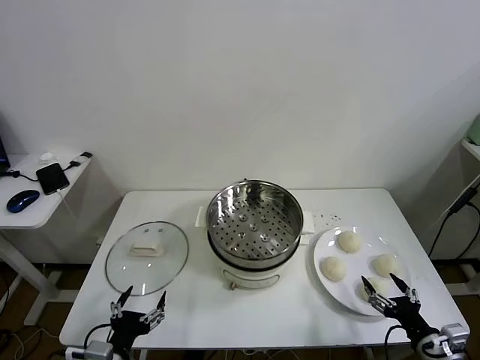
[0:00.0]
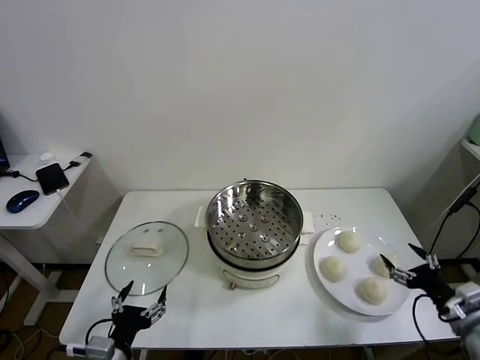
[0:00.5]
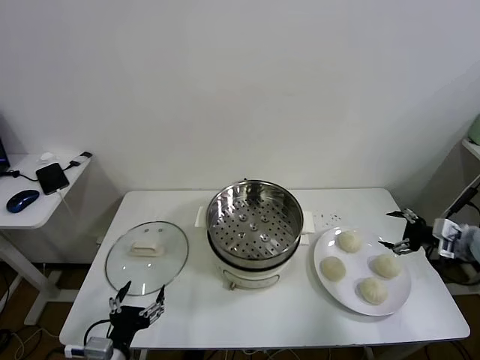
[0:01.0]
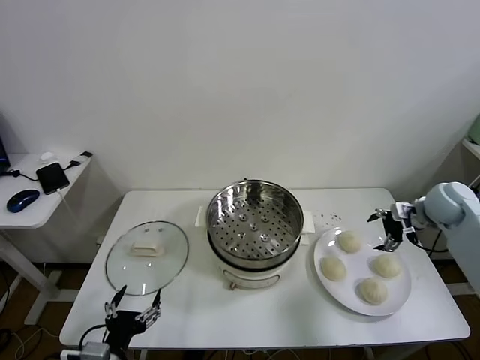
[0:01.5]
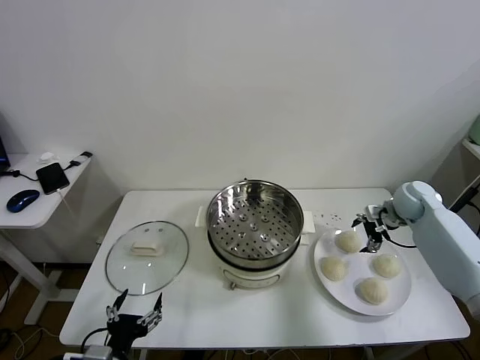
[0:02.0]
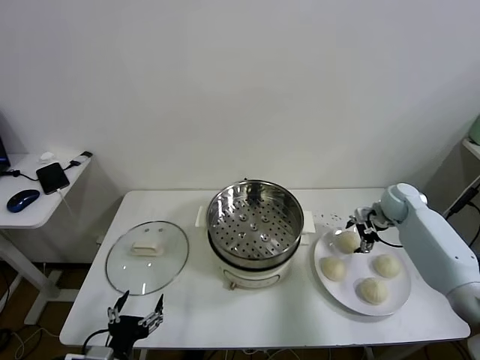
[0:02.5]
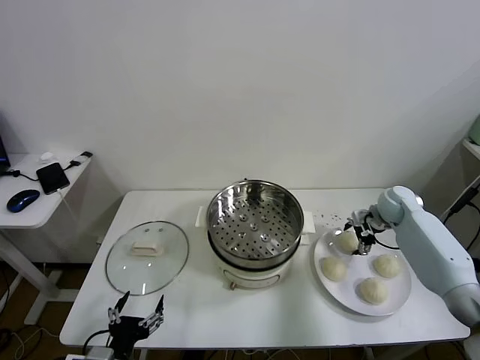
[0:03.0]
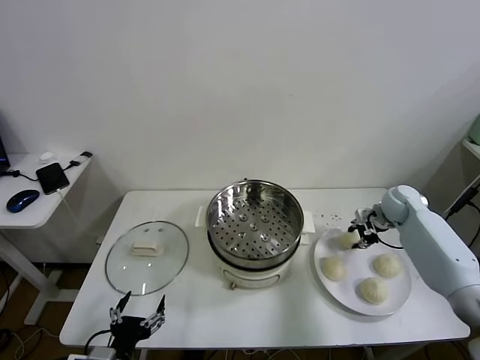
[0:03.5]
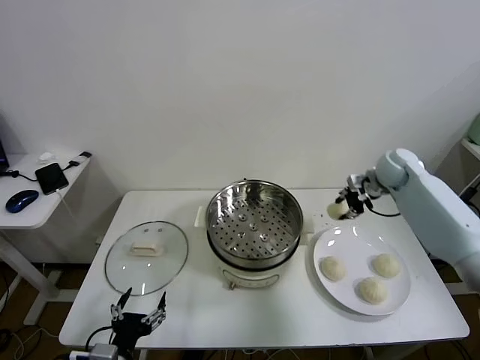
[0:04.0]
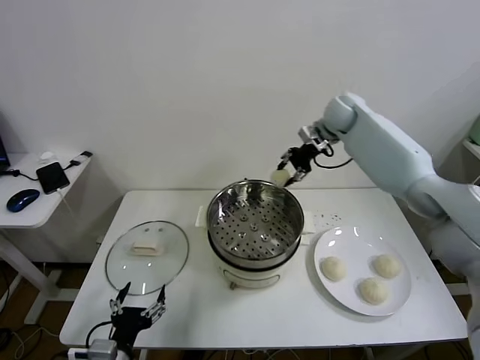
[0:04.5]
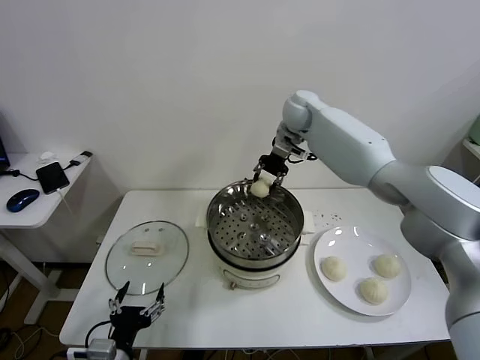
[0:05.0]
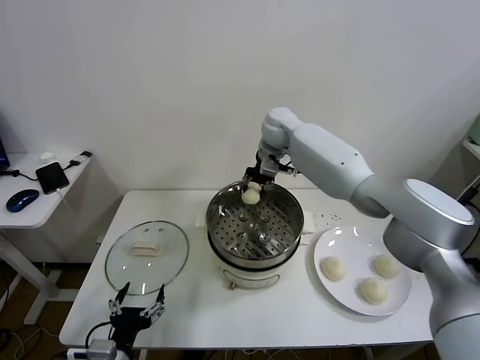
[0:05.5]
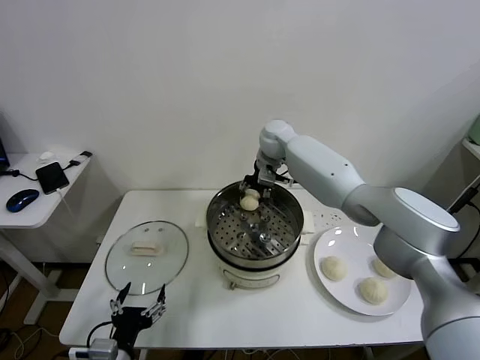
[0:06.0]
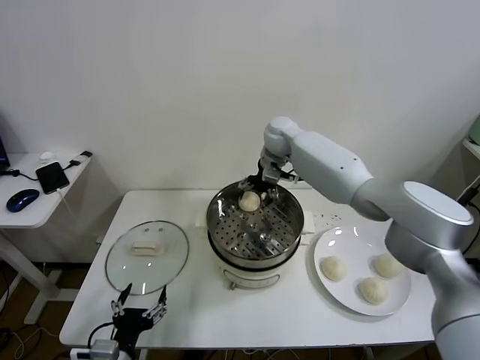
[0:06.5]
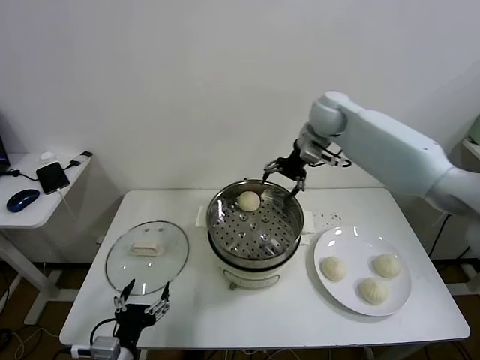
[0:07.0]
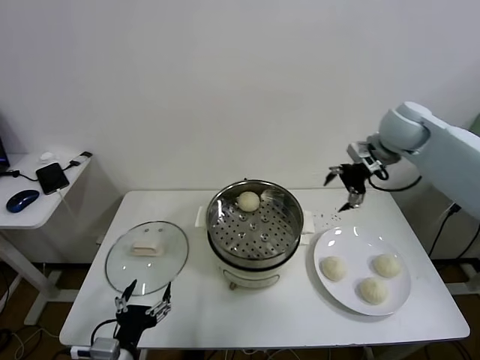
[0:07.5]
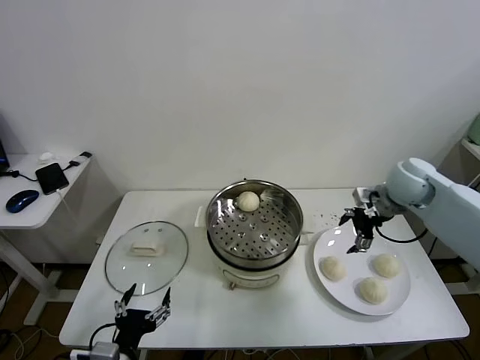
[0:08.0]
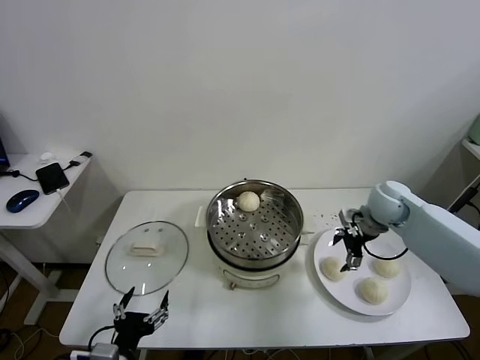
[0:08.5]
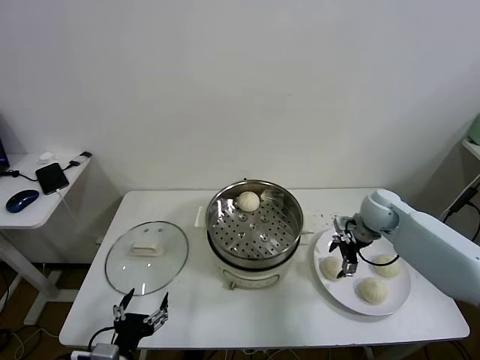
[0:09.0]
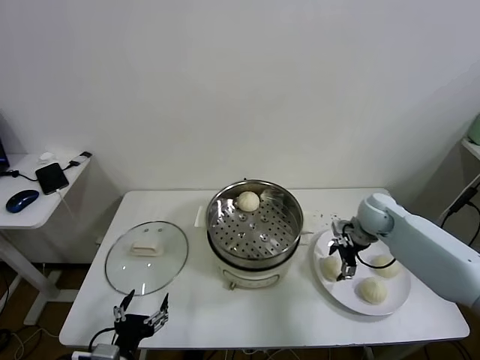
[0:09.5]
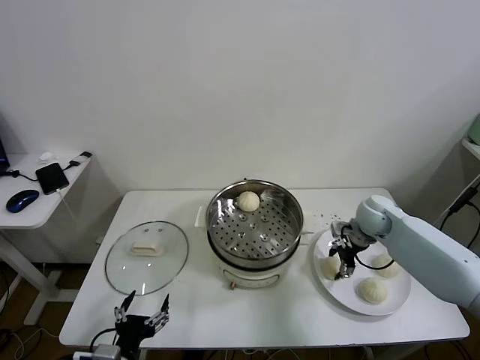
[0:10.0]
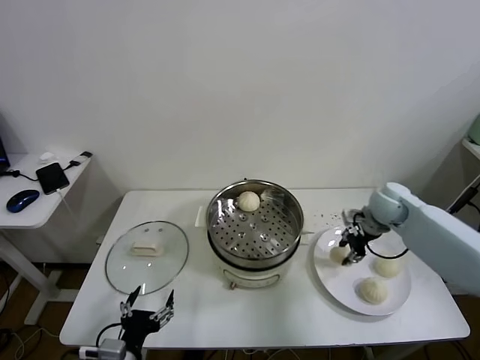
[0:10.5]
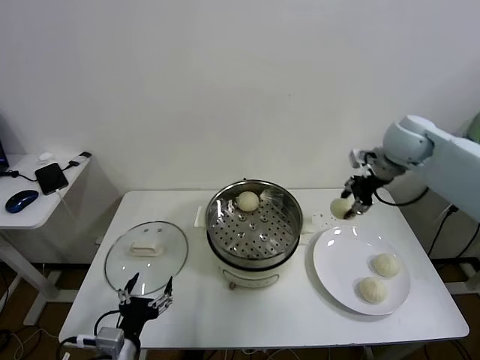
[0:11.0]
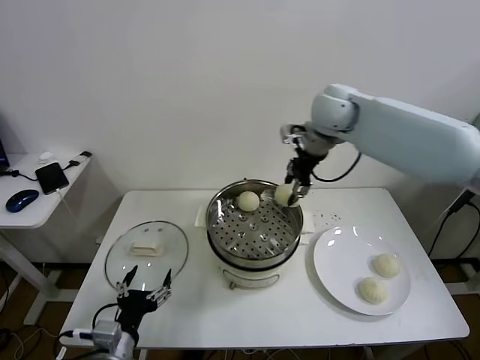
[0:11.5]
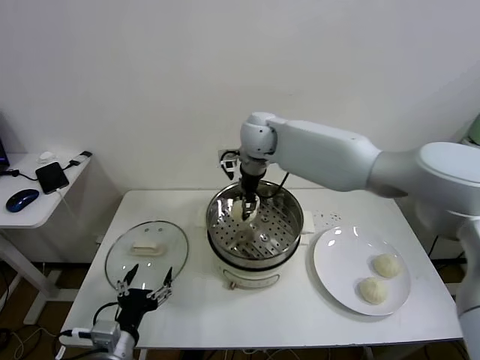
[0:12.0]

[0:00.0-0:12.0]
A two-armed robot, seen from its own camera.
Task of the whole recording: take steamed baozi put them in steamer.
Step, 0.0 to 3.0 s: Grasp the baozi in the plate with right gripper.
Step, 3.5 to 6.0 s: Place the baozi on the steamer with right gripper.
Step, 6.5 to 10.0 s: Grasp the baozi in the plate with right gripper.
2.0 to 4.0 s: The right gripper moves upward, to the left and forward, about 15 cm, and closes up.
4.0 to 6.0 s: The right gripper shifts approximately 25 cm to the left, and opens.
6.0 to 8.0 s: The right gripper goes roughly 30 cm to the right and backward, and opens up.
8.0 to 10.0 s: The right gripper goes approximately 10 cm downward, and closes.
10.0 to 12.0 s: The right gripper moves to the left and upward, some 35 cm.

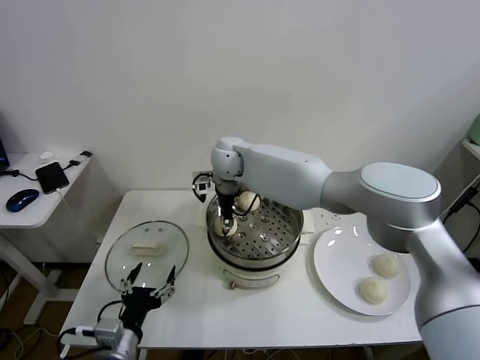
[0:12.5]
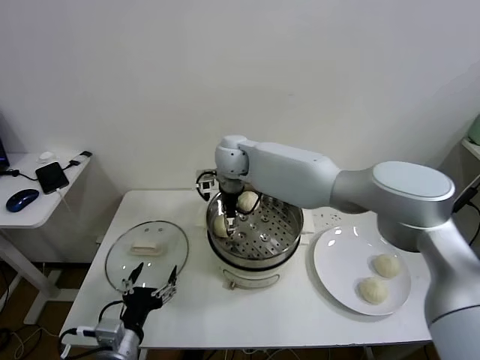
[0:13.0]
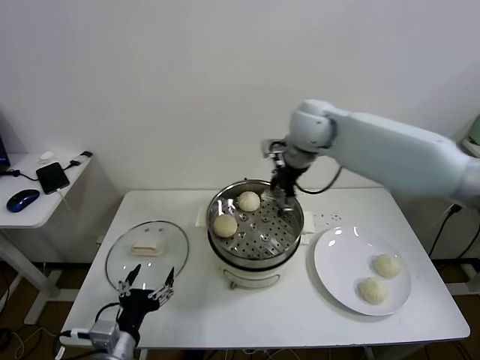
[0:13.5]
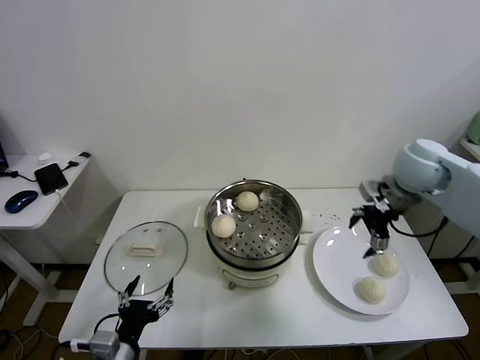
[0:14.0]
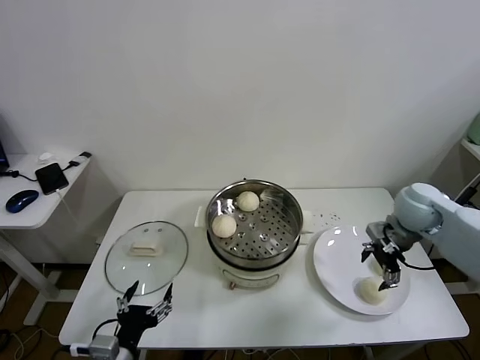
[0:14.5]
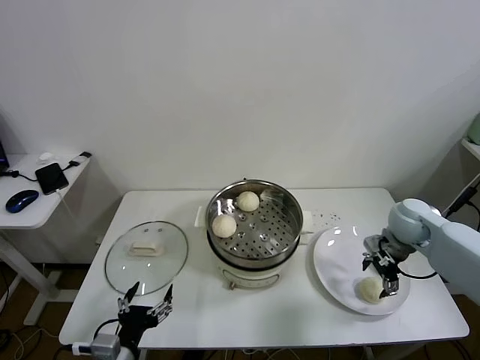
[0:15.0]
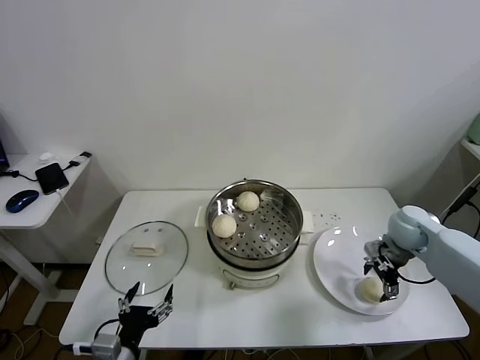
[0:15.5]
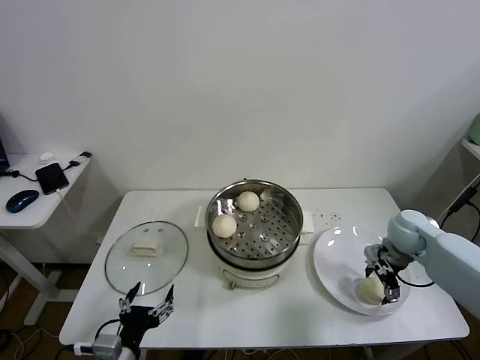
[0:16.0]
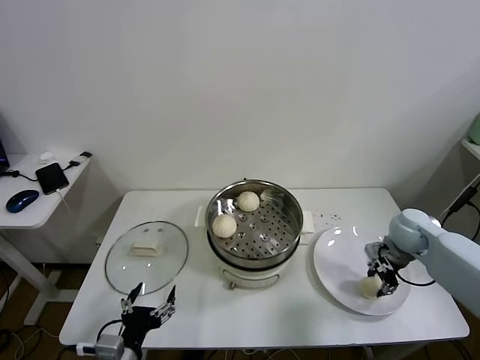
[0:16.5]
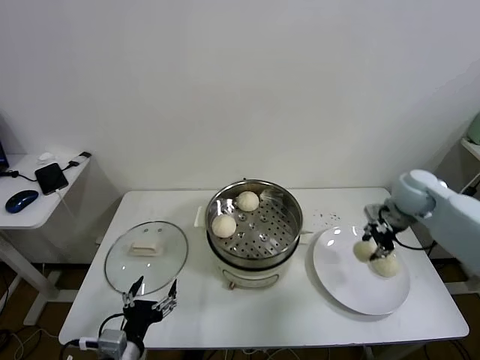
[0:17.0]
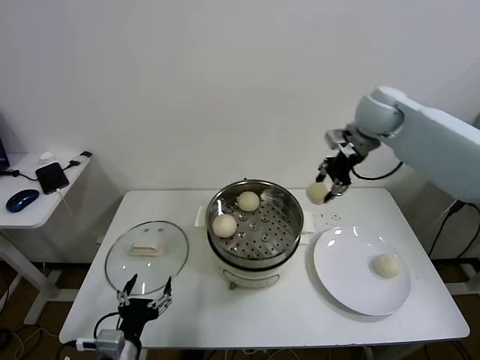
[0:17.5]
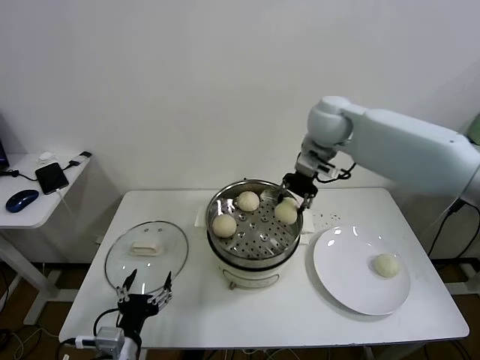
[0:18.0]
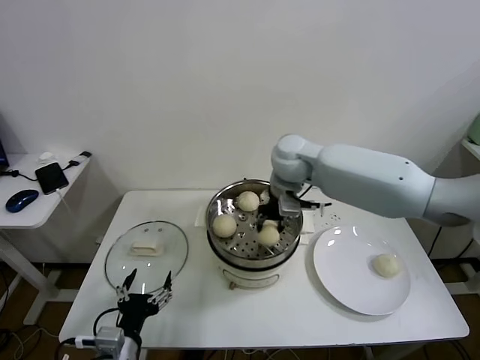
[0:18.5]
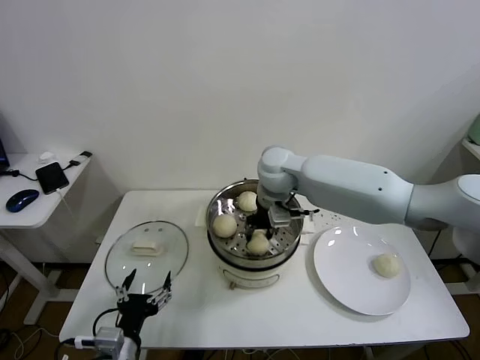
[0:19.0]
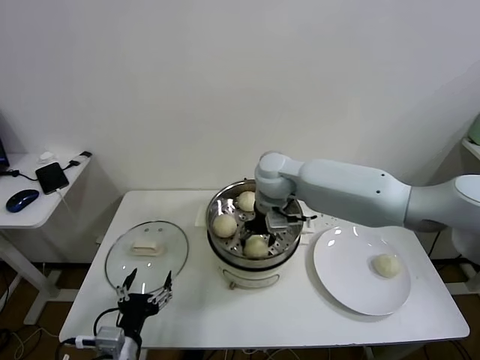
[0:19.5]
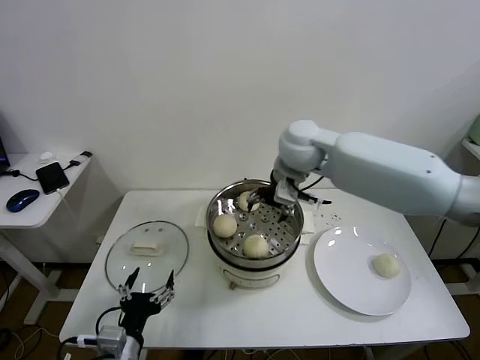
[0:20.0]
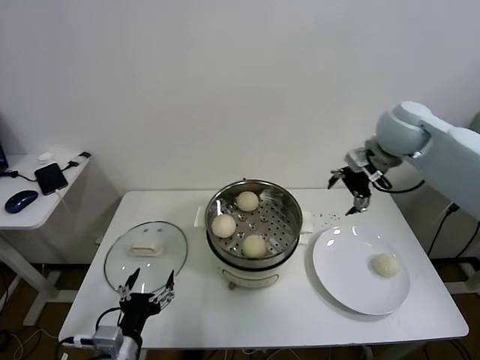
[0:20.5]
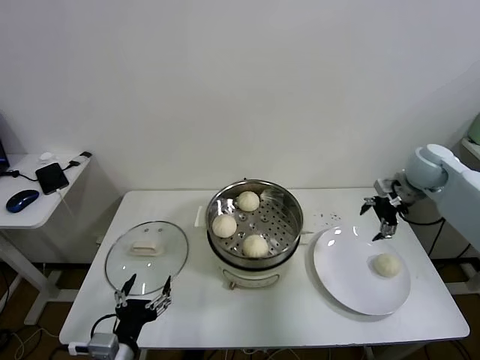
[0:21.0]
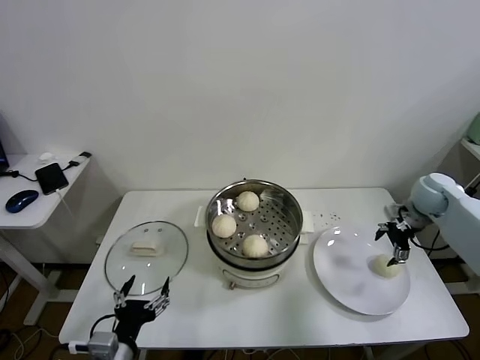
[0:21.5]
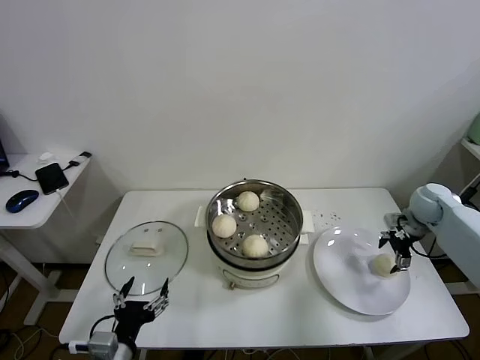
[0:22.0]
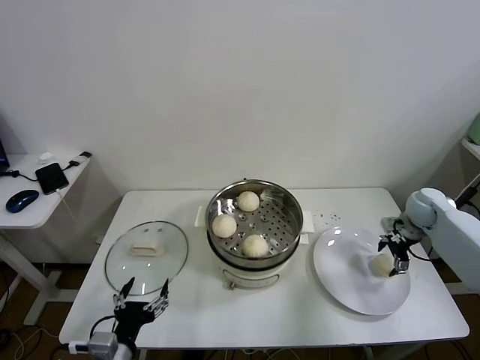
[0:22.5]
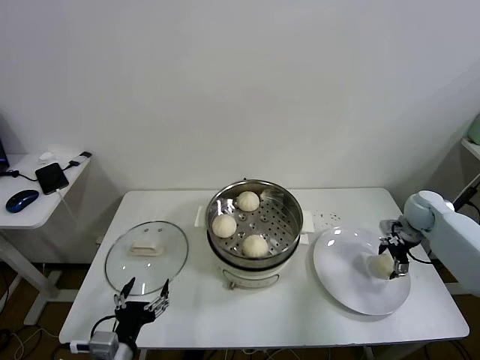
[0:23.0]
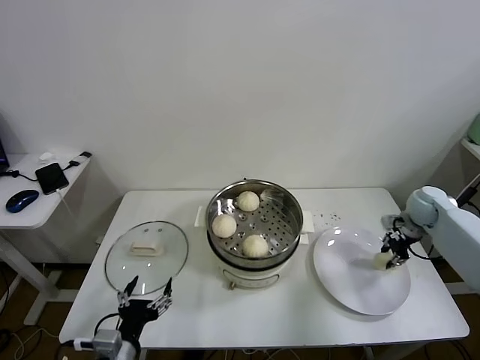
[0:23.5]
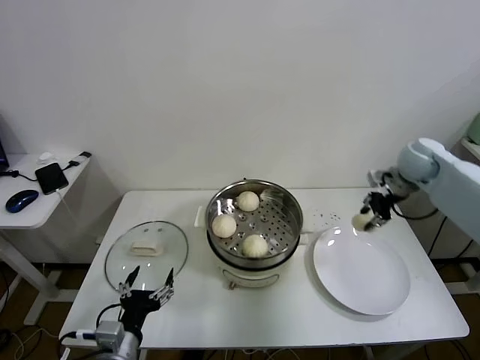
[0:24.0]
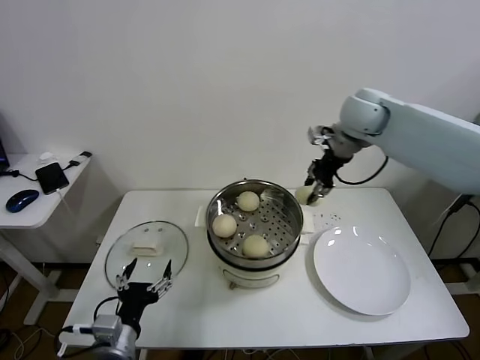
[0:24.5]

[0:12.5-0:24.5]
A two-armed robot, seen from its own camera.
Task of the whole recording: take steamed baozi put them in steamer.
Step, 13.5 to 16.0 s: Grasp the baozi in the plate with right gripper.
Step, 16.5 to 19.5 s: Place the baozi on the steamer with right gripper.
Step, 20.0 to 23.0 s: Grasp the baozi in the plate with right gripper.
12.5 to 14.5 s: The right gripper travels to the right by approximately 40 cm, and opens its fingers.
14.5 to 16.5 s: The right gripper moves downward, some 10 cm, and closes.
16.5 to 18.5 s: The right gripper travels to the left and upward by some 35 cm.
18.5 to 20.5 s: The right gripper goes approximately 20 cm to the right, and opens.
20.5 to 22.5 s: The right gripper goes roughly 30 cm downward and to the right.
22.5 to 24.5 s: The right gripper travels upward and to the left by approximately 35 cm, and closes up.

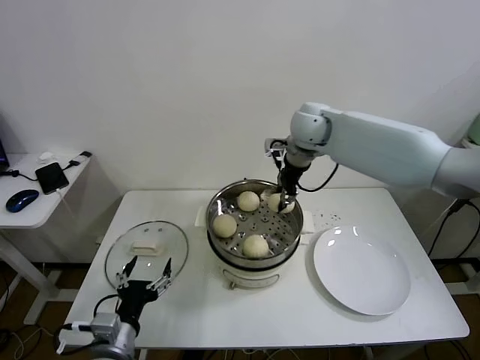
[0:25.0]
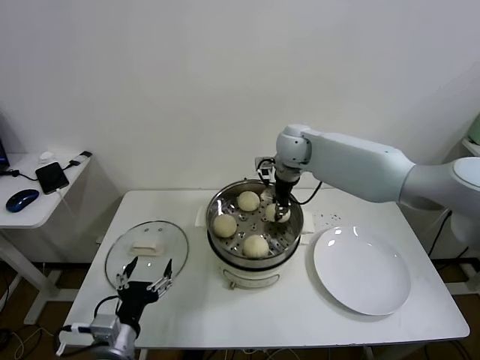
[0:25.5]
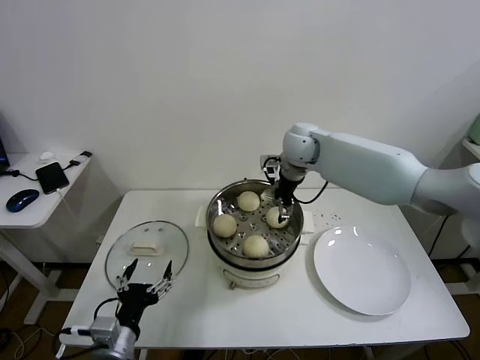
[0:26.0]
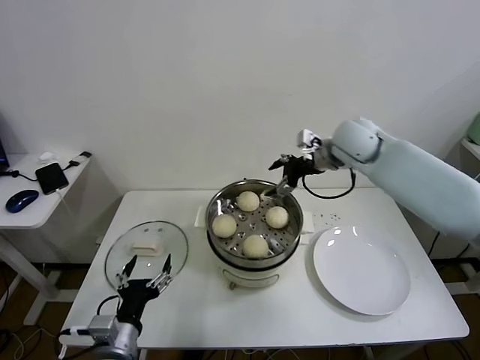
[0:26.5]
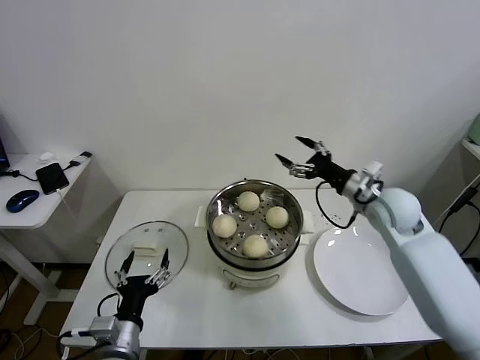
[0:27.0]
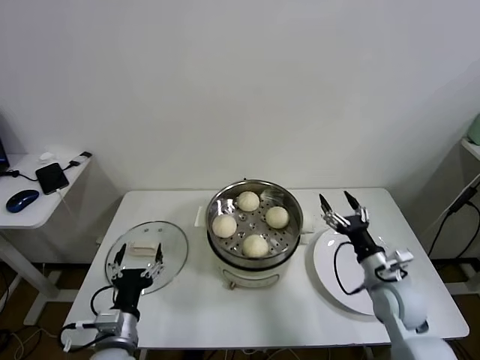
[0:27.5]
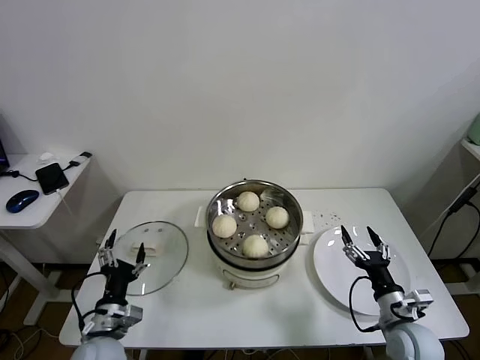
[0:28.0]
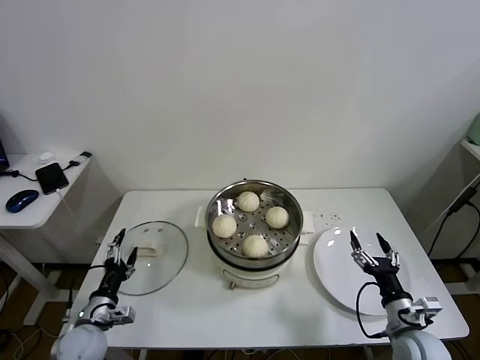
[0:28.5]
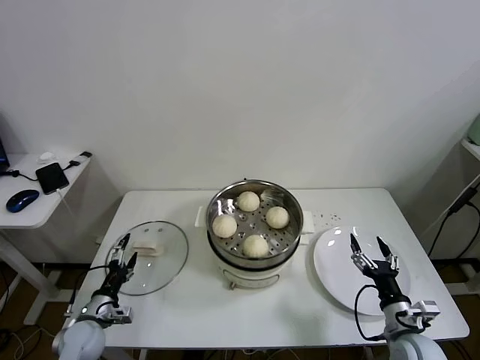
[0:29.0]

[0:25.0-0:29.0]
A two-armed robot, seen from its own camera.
Task of the whole recording: take steamed baozi put them in steamer.
25.0 to 27.0 s: The right gripper travels to the right, backward and downward by some 25 cm, and opens up.
27.0 to 29.0 s: The right gripper travels backward and downward by roughly 30 cm. The left gripper heads to the left, downward and forward, covering some 20 cm.
